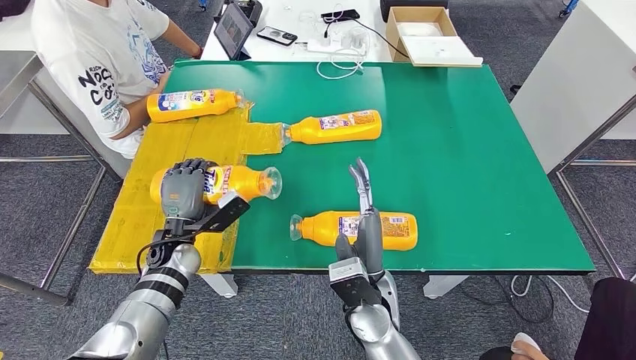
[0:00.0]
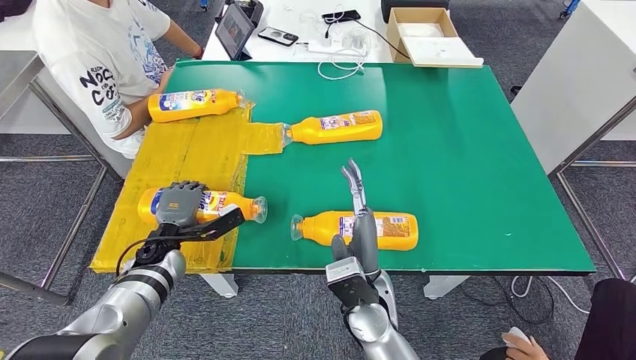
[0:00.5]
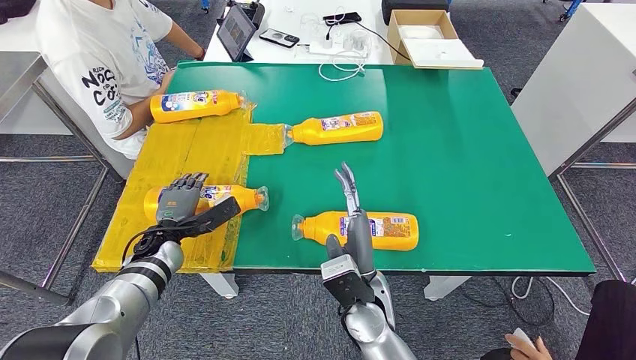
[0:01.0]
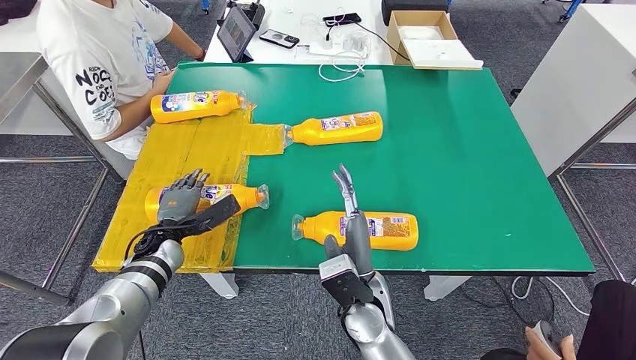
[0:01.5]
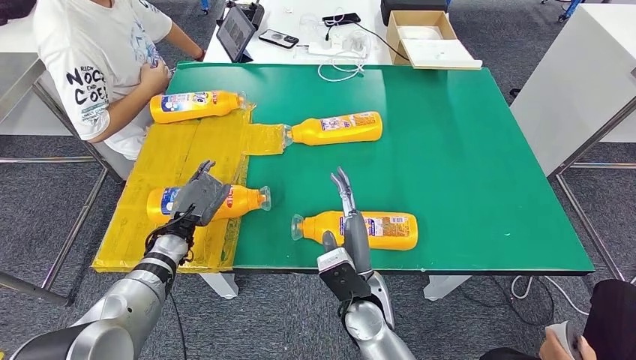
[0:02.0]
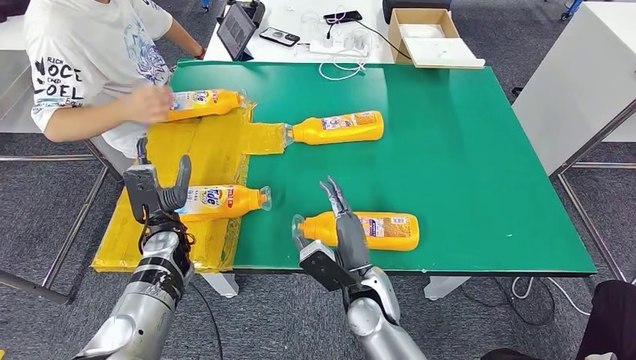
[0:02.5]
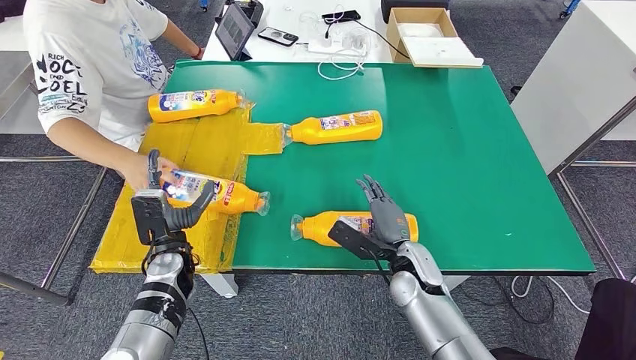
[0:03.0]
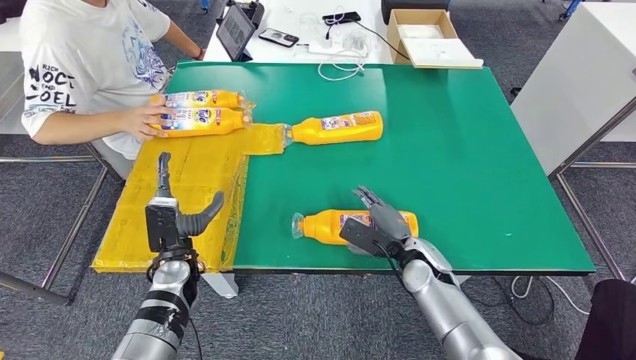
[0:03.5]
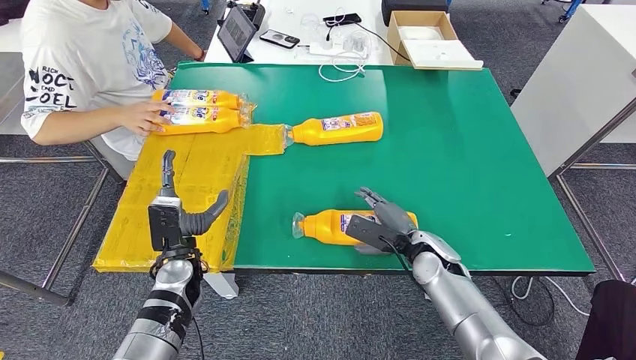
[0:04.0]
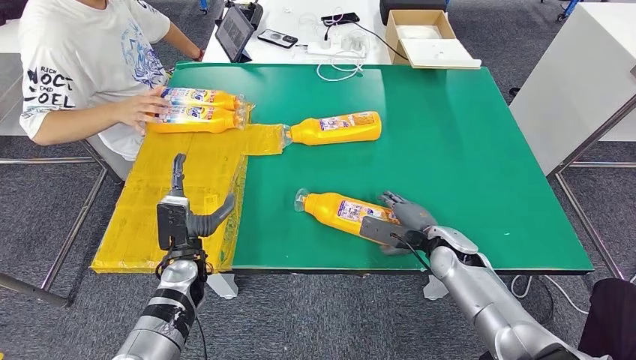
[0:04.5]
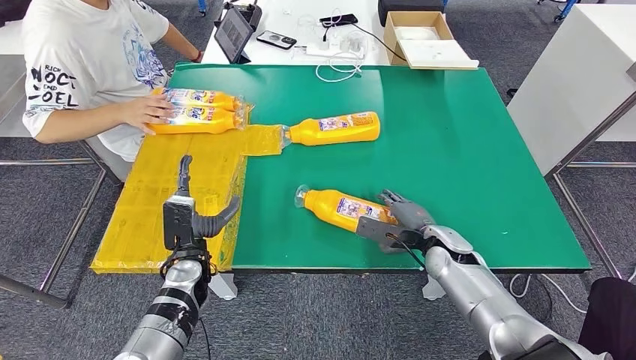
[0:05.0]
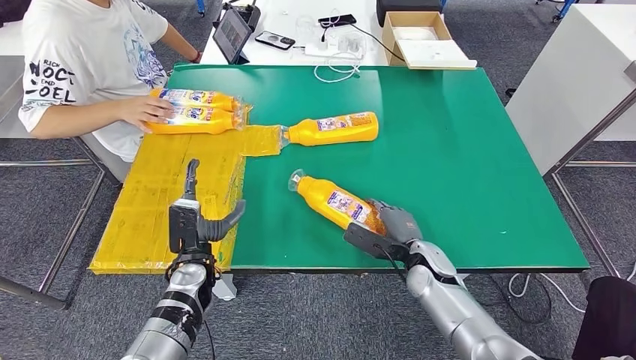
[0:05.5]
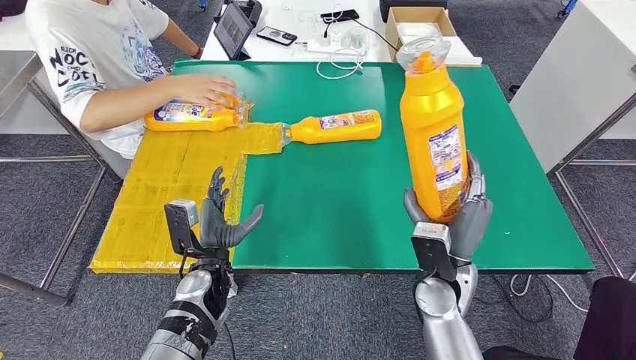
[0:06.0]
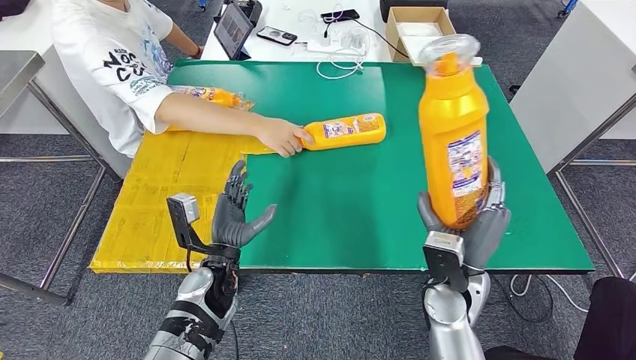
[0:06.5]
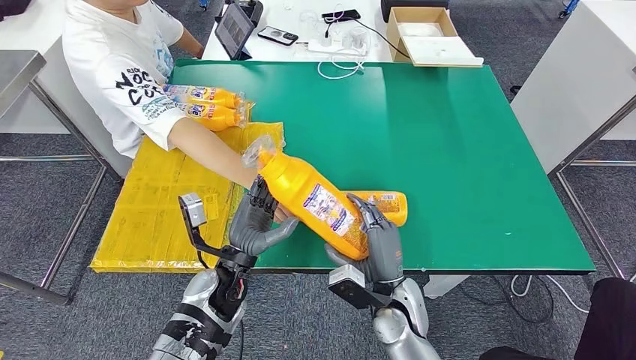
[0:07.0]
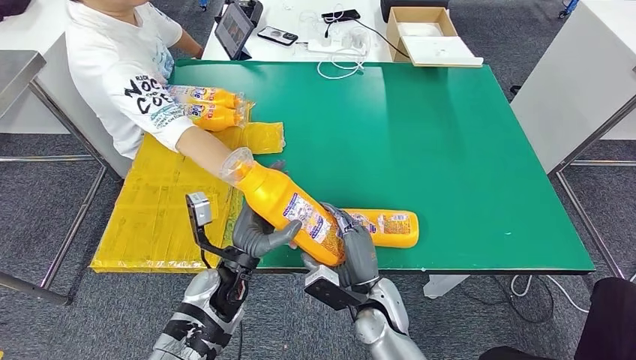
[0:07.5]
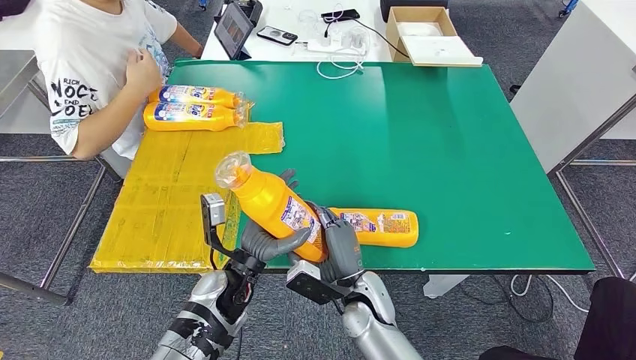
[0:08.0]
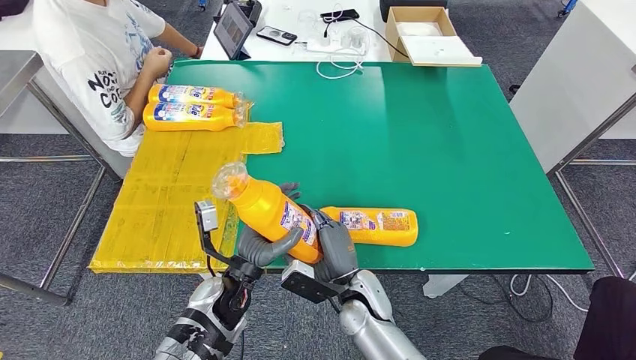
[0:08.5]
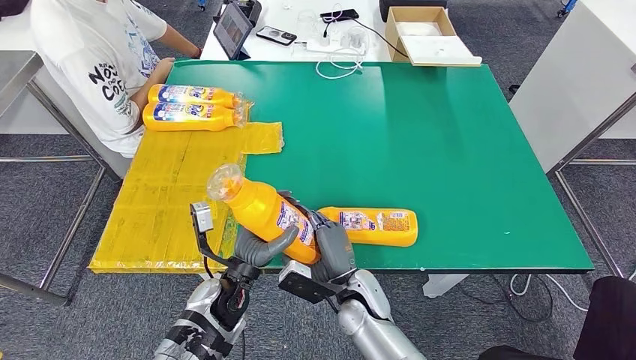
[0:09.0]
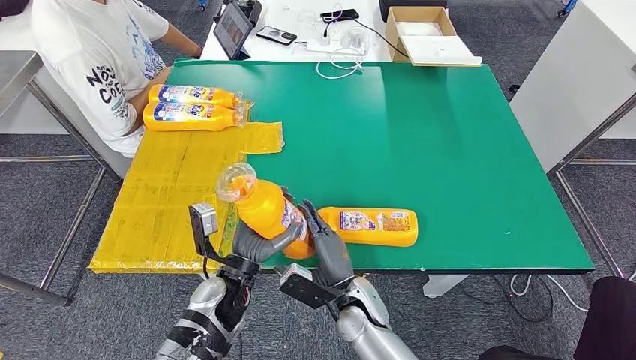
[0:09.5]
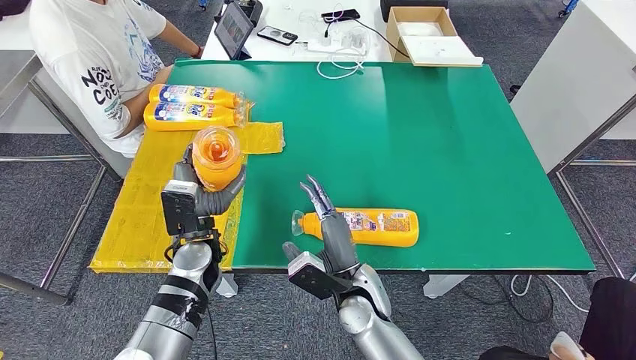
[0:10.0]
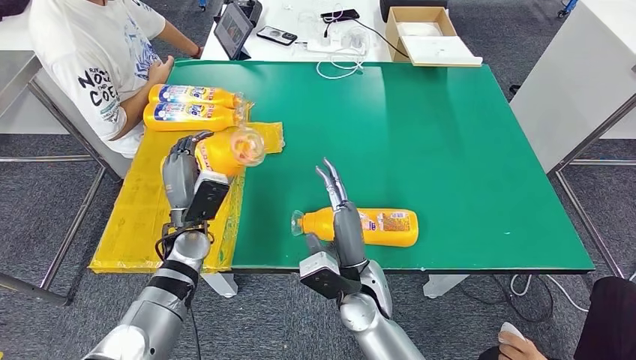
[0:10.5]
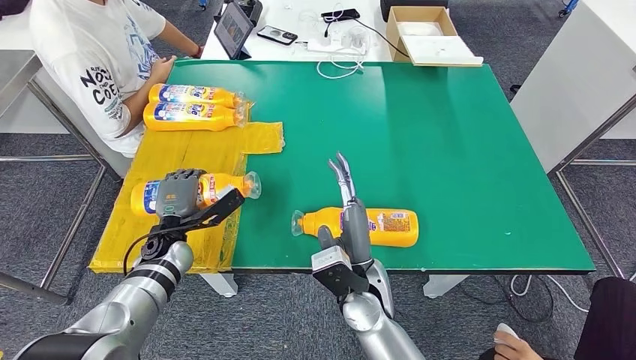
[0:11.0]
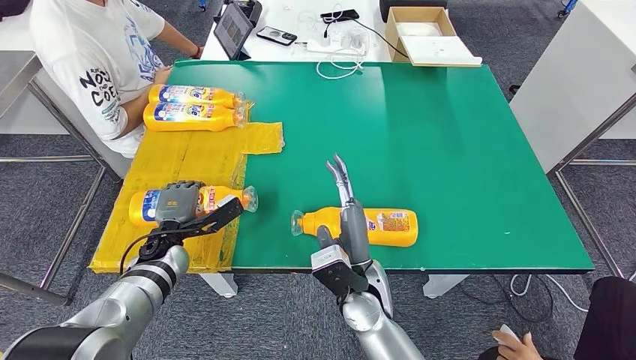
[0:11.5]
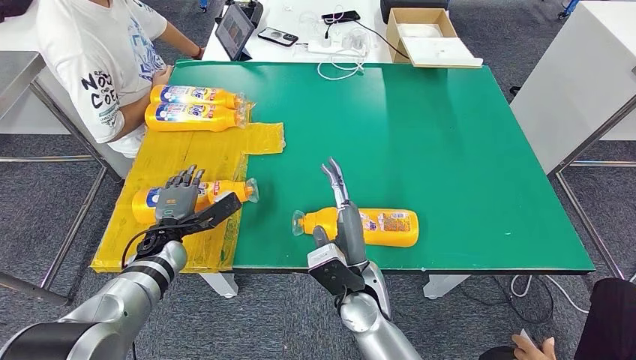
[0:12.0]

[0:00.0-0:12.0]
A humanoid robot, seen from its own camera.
Step, 0:00.0 to 0:03.0: Flip the fast-moving consumer goods bottle to the front side.
Step, 0:04.5 to 0:06.5: Pick up the fast-moving consumer goods bottle from the table.
0:08.0 to 0:10.0: The left hand goes about 5 cm to the left.
0:10.0 to 0:12.0: The left hand goes roughly 15 cm to the left and downward.

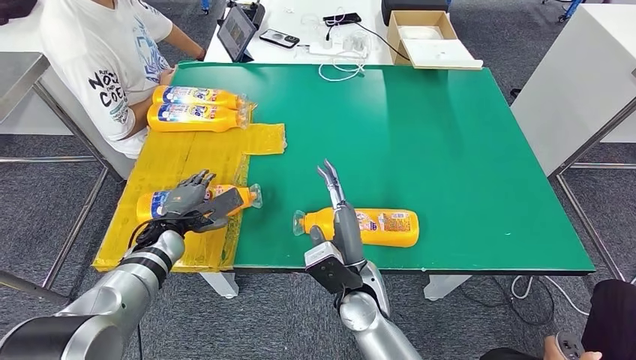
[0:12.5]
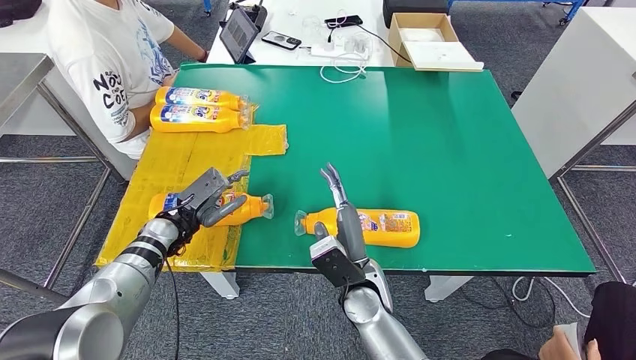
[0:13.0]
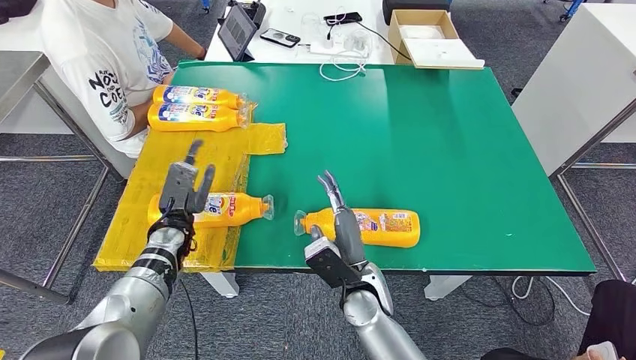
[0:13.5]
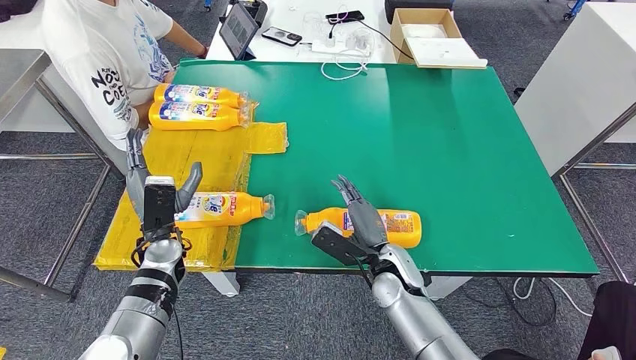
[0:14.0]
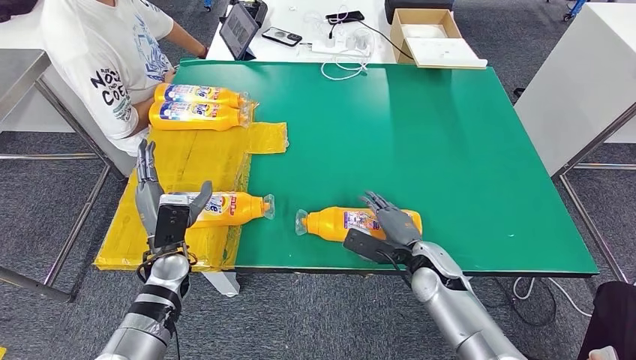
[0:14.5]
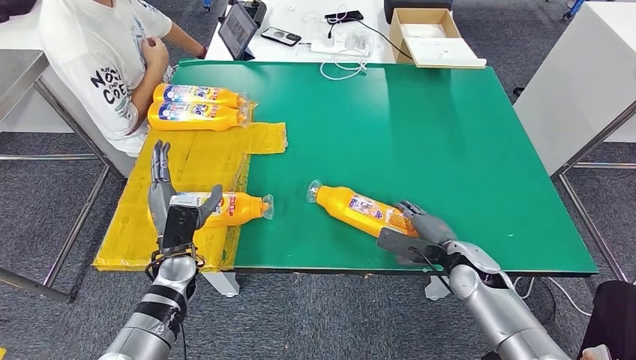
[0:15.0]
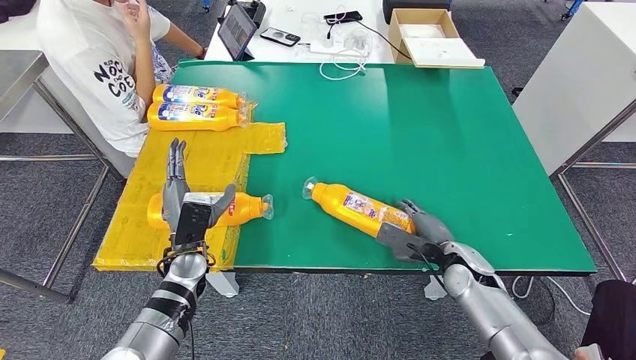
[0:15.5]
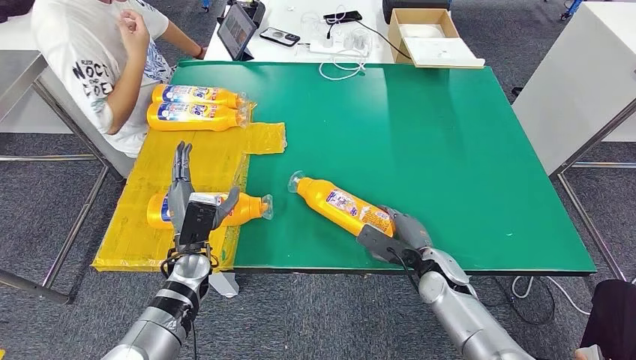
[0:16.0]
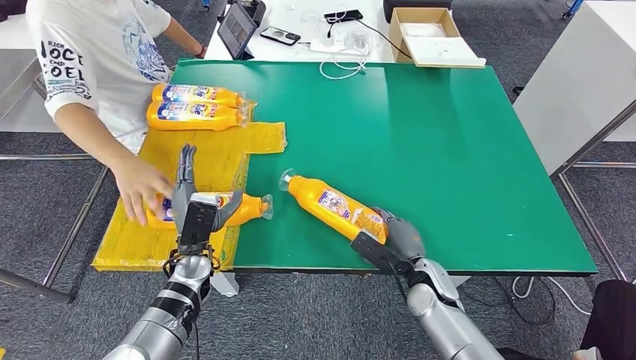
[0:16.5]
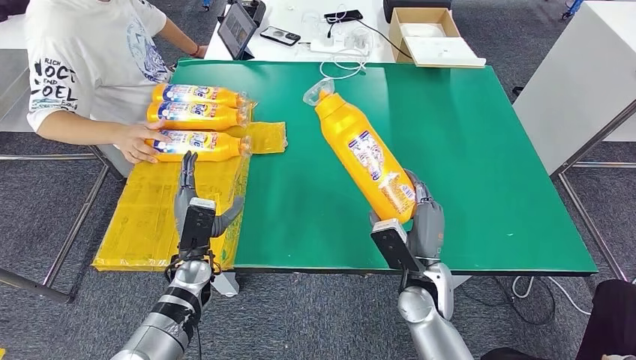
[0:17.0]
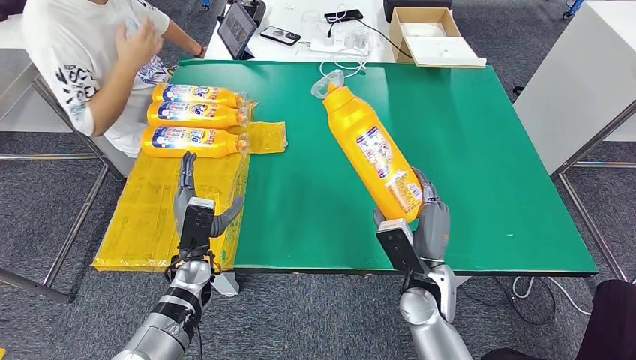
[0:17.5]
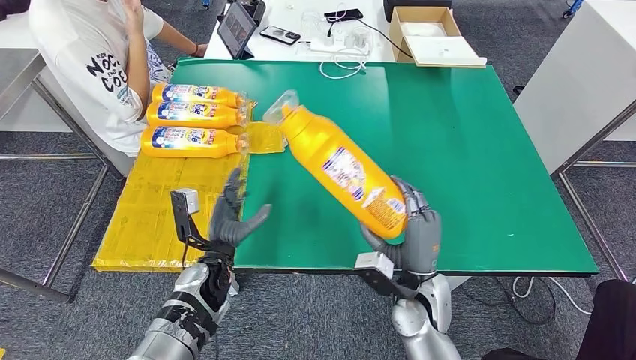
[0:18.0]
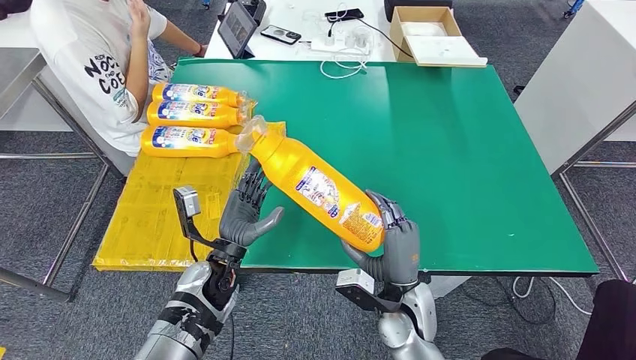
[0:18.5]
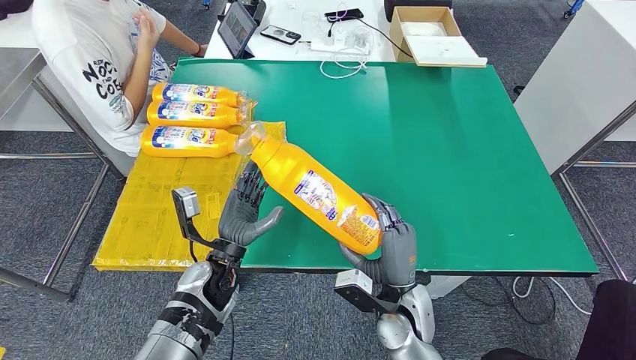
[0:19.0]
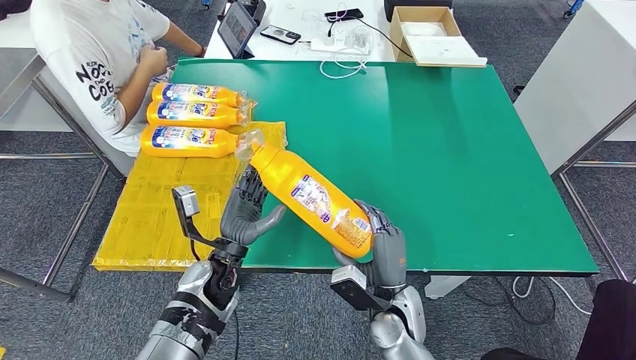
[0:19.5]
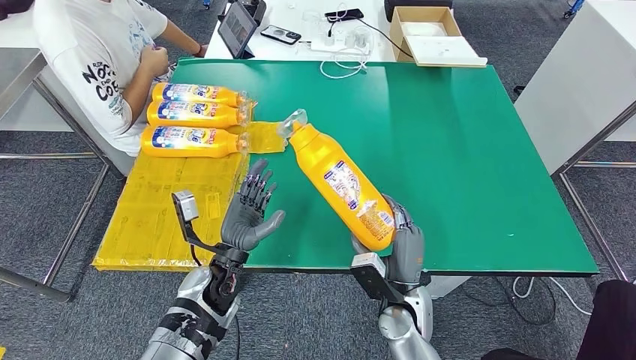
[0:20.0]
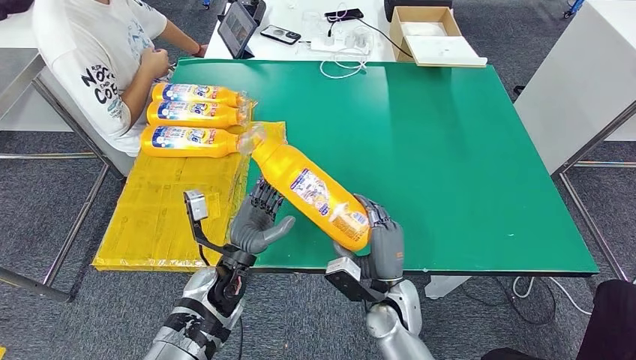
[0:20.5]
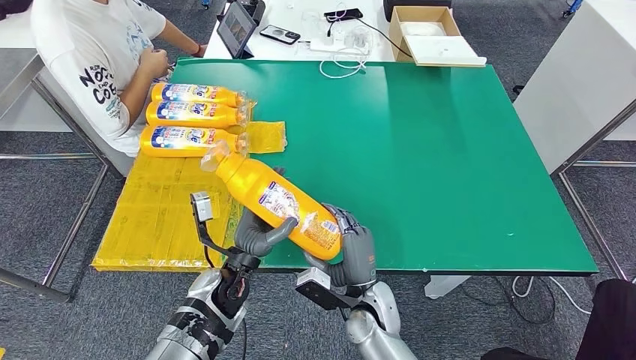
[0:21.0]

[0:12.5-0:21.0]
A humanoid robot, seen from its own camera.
Step, 0:12.5 to 0:17.0: Pick up the fast-moving consumer goods bottle from the table.
0:19.0 to 0:21.0: The right hand heads to the left, covering approximately 5 cm.
